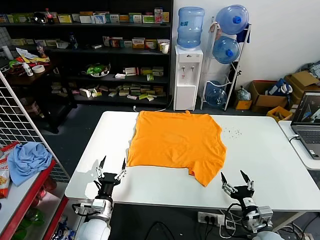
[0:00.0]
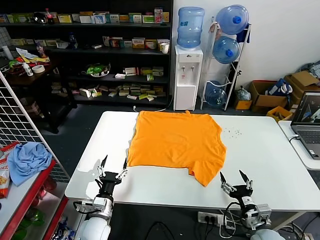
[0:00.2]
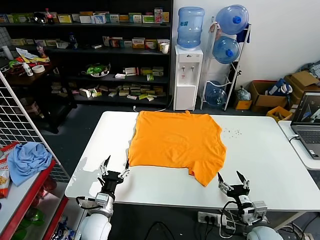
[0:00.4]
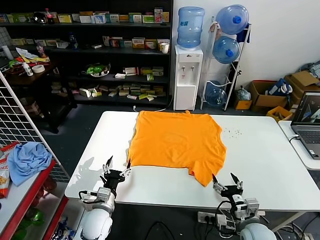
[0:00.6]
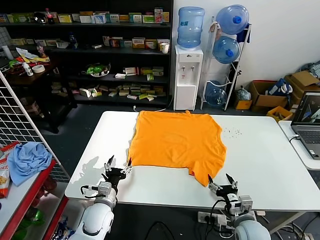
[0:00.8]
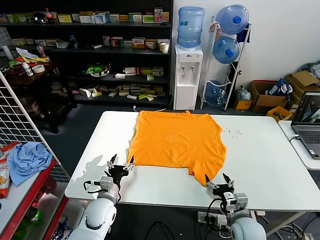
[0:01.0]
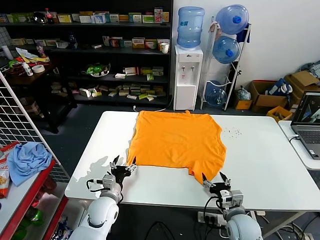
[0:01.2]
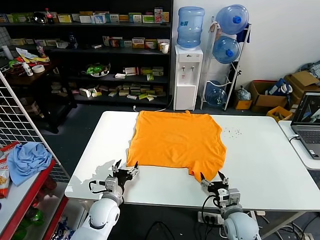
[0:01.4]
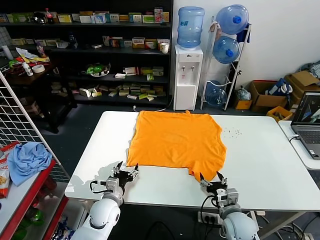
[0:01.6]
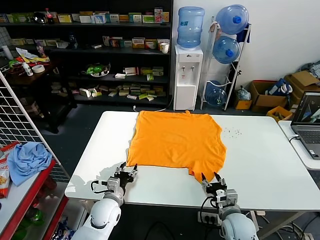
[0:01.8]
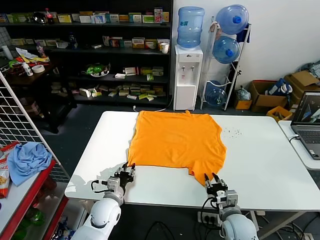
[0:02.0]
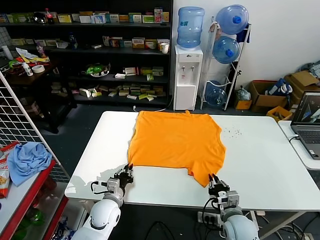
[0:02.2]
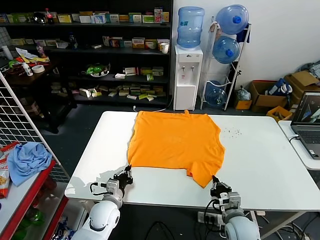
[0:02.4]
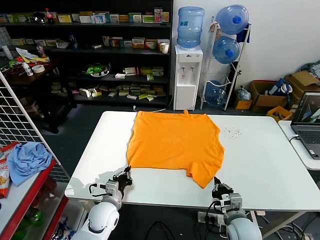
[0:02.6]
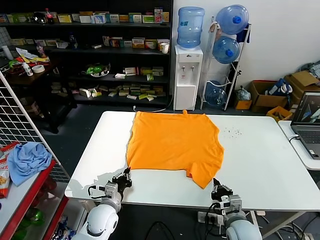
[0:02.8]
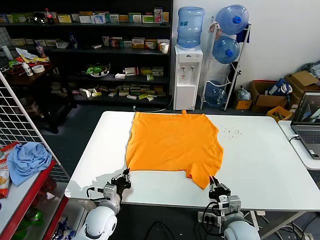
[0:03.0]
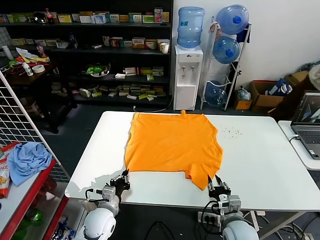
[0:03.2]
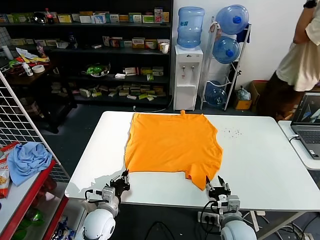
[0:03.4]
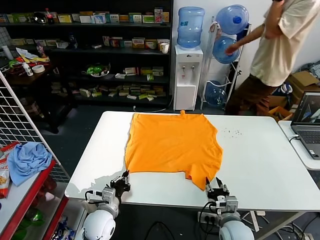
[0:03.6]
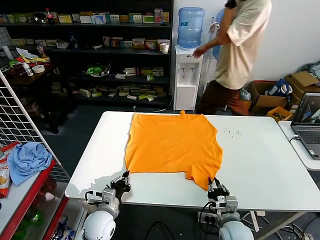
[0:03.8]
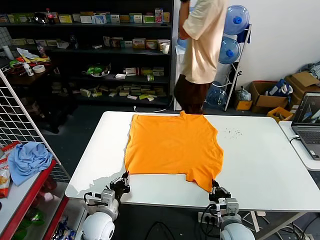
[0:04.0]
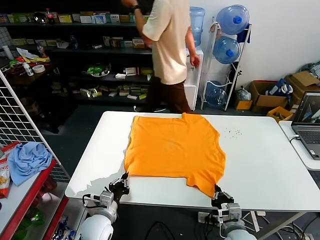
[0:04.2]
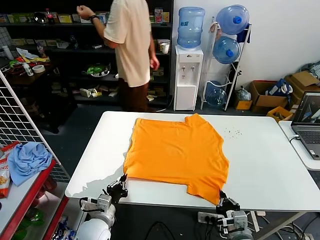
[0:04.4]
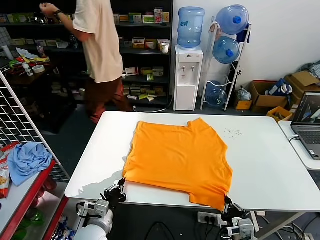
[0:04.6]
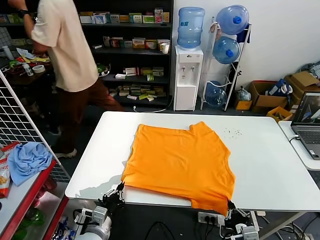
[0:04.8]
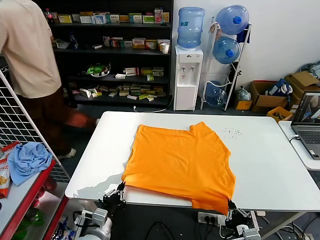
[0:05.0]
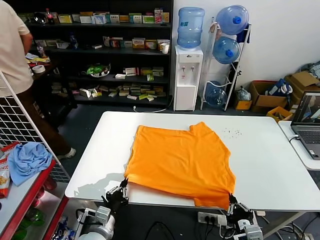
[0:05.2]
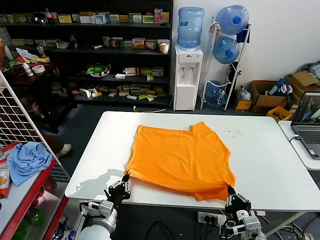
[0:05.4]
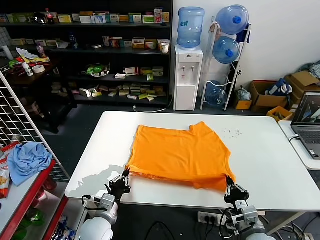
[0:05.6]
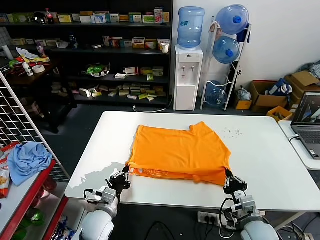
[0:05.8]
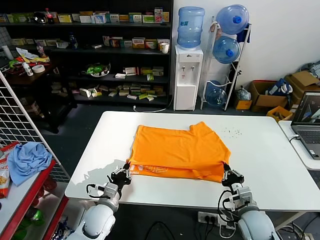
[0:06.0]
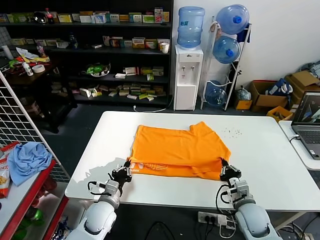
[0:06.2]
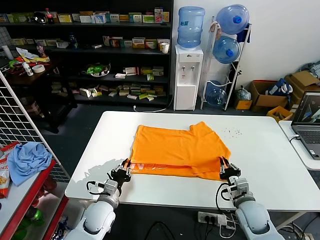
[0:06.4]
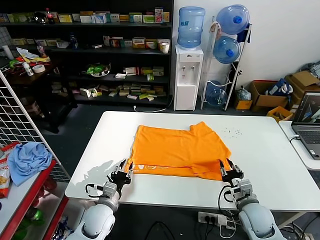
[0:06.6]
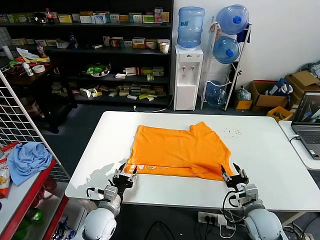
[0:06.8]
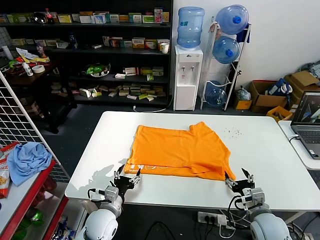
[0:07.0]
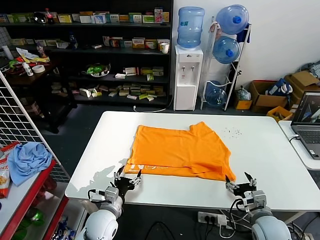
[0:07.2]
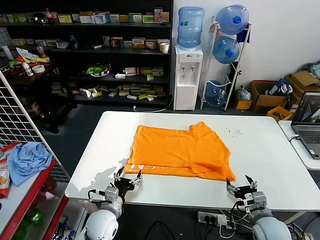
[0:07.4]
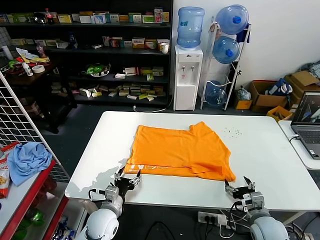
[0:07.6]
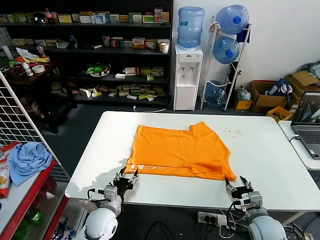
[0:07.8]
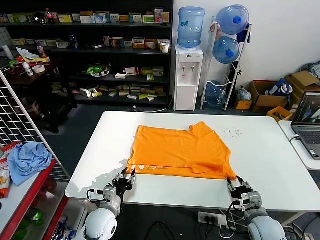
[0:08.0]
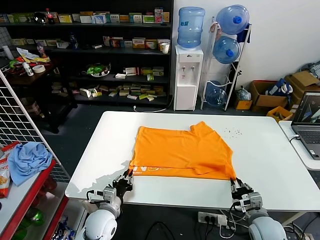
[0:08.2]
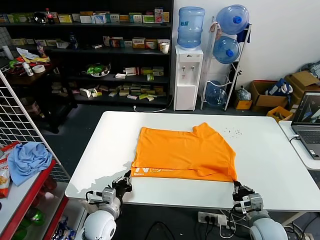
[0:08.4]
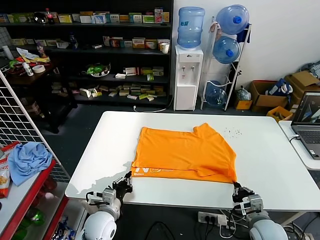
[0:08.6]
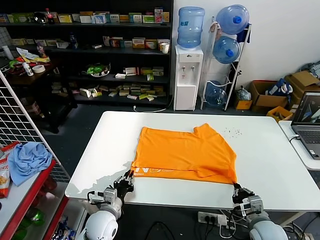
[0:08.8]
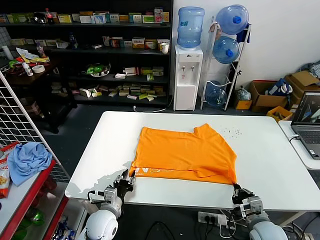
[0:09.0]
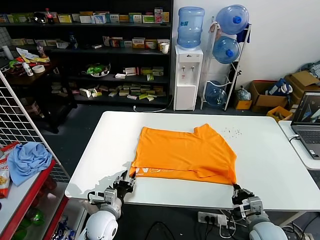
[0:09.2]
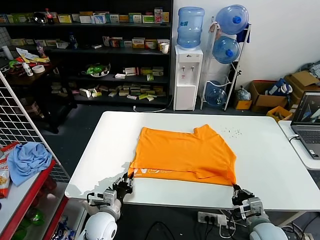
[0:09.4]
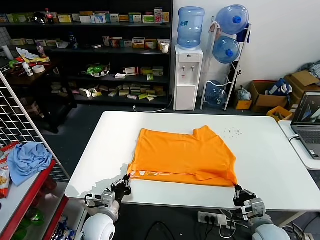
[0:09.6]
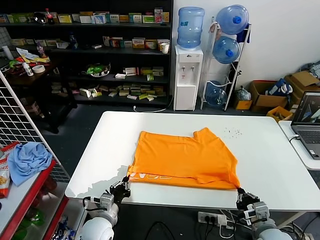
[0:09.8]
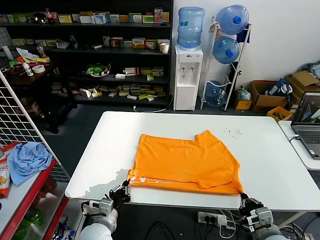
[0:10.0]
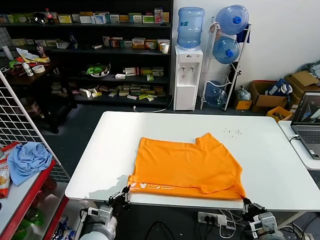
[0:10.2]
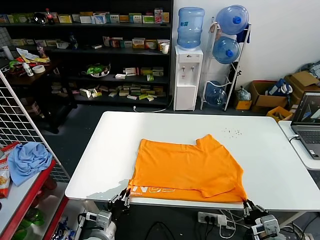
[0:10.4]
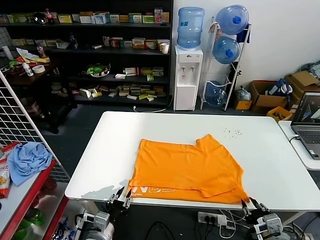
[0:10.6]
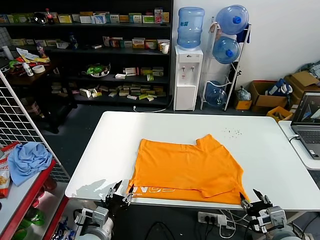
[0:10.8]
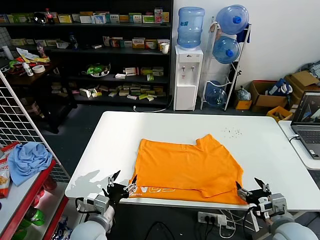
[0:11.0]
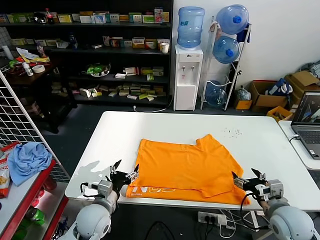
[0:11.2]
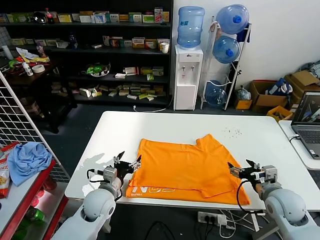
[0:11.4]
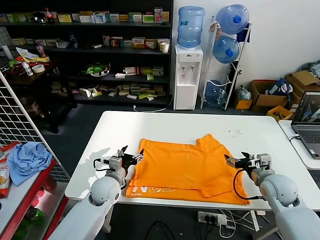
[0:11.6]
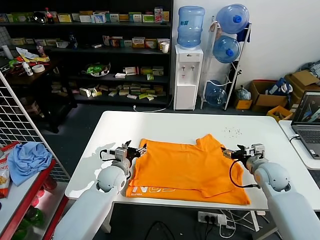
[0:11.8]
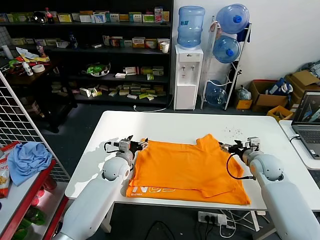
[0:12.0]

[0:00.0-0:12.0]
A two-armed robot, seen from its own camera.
Task of the whole recording: fold and organize the clothes.
Step, 0:00.0 to 0:04.2: use both grippers simultaneously to clamp the lower edge of the clothing fabric.
Step, 0:04.4 to 0:07.0: use both grippers to drag the lower edge of the fabric forward and fold it over the upper edge.
Step, 0:07.2 to 0:10.8: Drag the clothes downward with both gripper.
0:01.6 to 0:03.0: The left gripper closes its fingers, while the right gripper closes.
0:03.0 to 0:04.4: The right gripper shifts about 5 cm backward, and opens, then closes once more.
0:04.4 to 0:06.0: The right gripper shifts some 10 cm forward.
0:06.0 to 0:07.6: The right gripper opens its fingers; the left gripper opens.
0:07.6 to 0:09.0: The right gripper closes its fingers, while the left gripper closes.
0:09.0 to 0:10.4: Both grippers travel together backward, roughly 10 cm.
0:10.4 to 0:12.0: The two grippers go roughly 25 cm forward. The right gripper opens its fingers, while the left gripper opens its fingers.

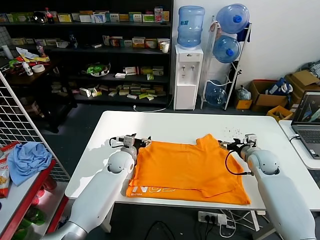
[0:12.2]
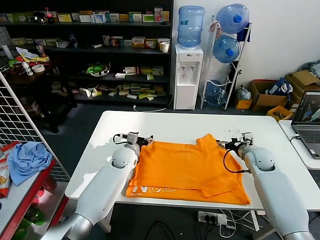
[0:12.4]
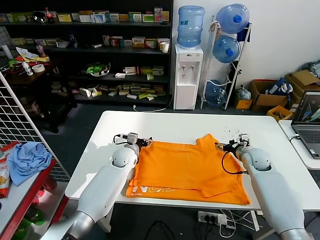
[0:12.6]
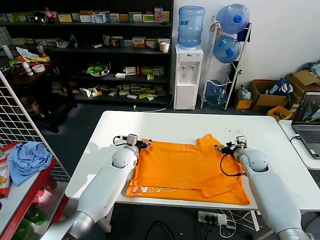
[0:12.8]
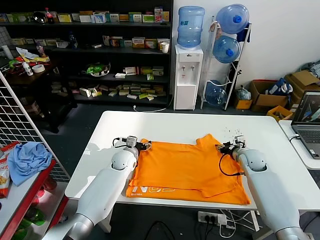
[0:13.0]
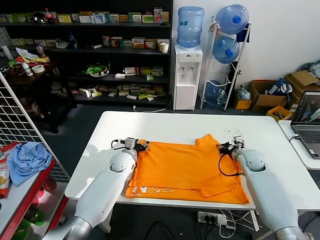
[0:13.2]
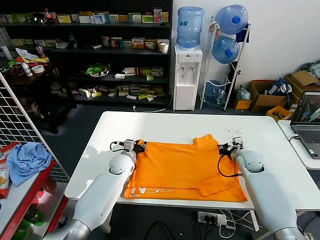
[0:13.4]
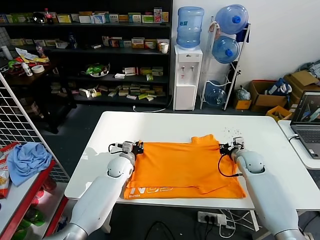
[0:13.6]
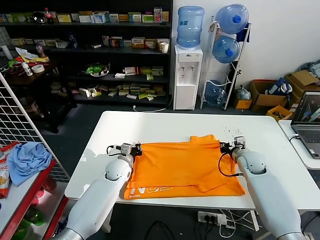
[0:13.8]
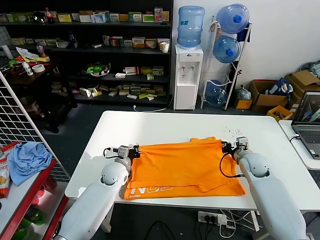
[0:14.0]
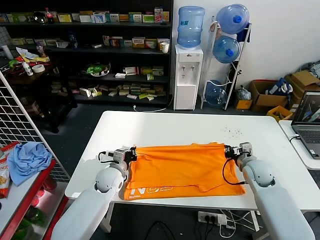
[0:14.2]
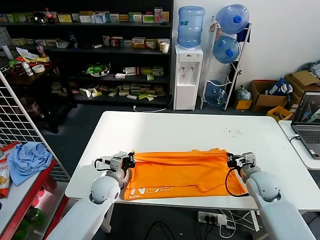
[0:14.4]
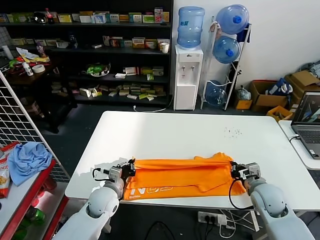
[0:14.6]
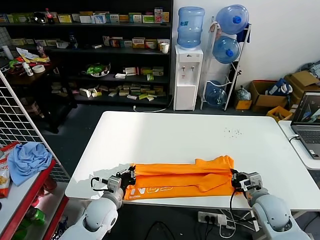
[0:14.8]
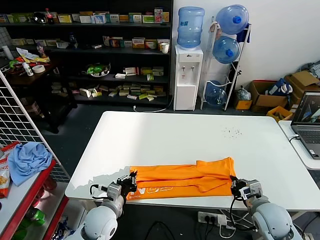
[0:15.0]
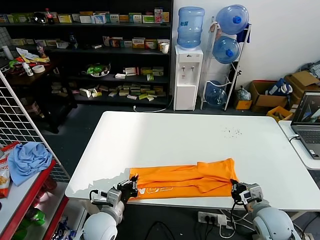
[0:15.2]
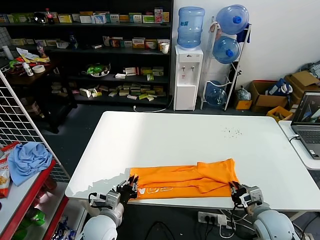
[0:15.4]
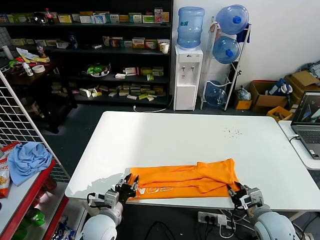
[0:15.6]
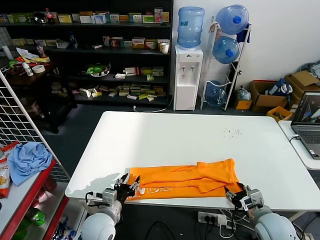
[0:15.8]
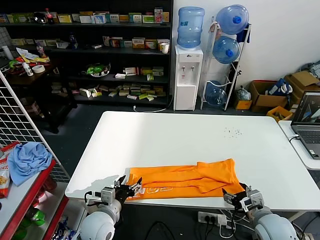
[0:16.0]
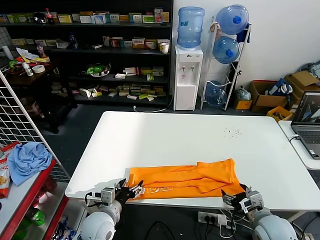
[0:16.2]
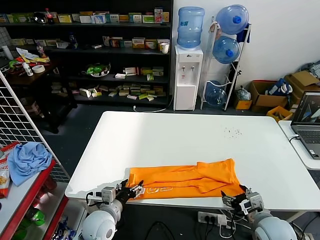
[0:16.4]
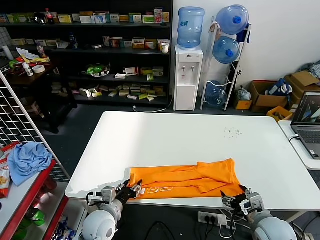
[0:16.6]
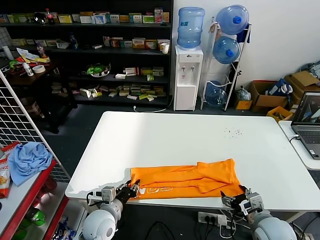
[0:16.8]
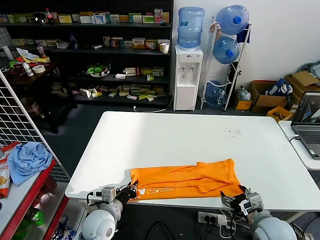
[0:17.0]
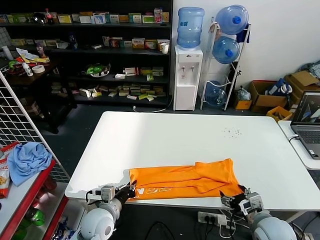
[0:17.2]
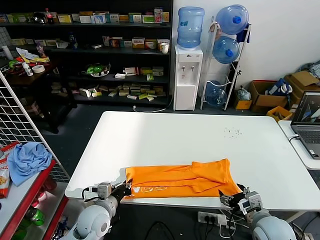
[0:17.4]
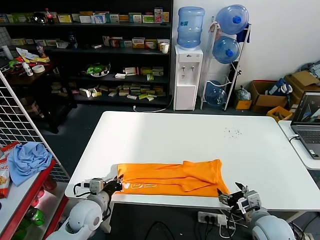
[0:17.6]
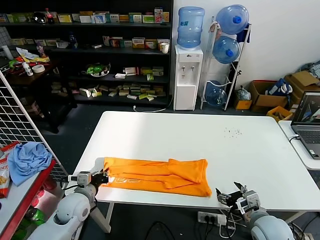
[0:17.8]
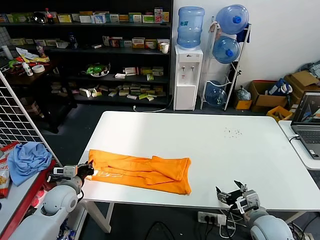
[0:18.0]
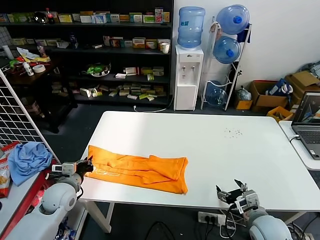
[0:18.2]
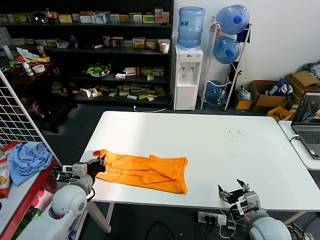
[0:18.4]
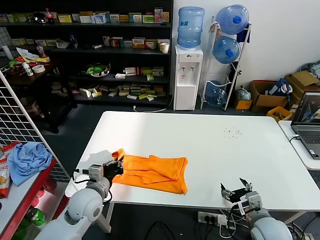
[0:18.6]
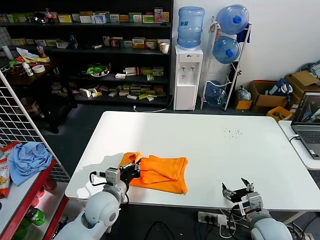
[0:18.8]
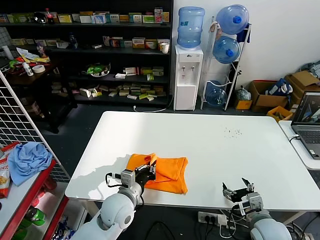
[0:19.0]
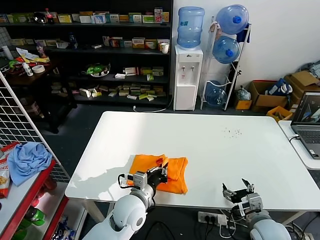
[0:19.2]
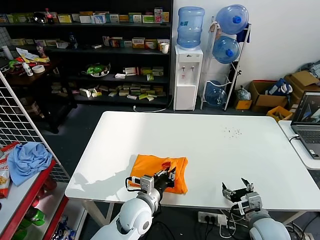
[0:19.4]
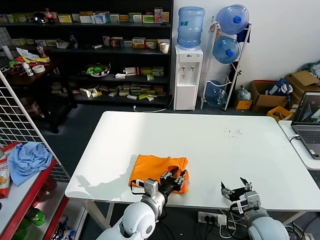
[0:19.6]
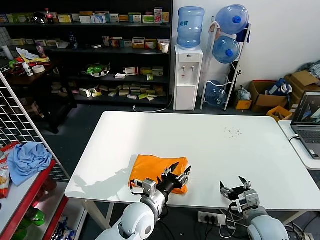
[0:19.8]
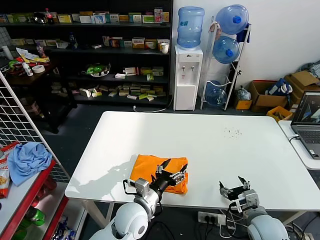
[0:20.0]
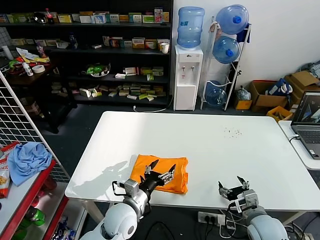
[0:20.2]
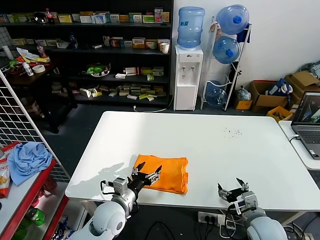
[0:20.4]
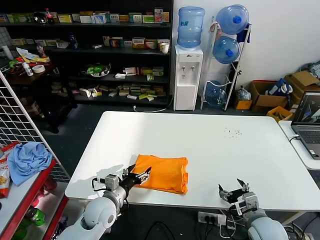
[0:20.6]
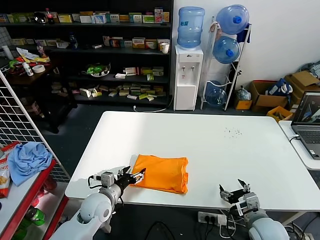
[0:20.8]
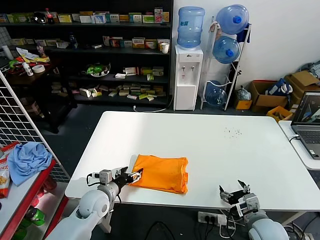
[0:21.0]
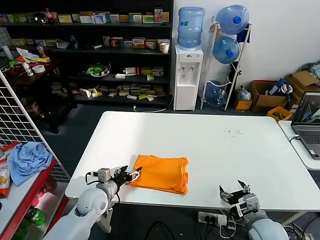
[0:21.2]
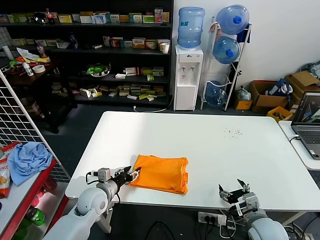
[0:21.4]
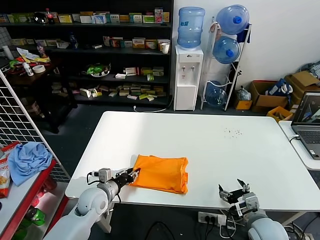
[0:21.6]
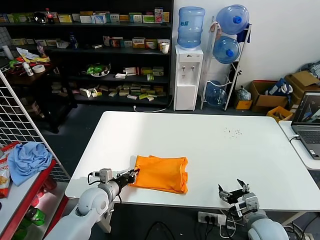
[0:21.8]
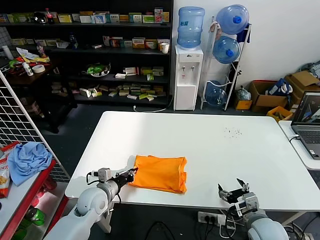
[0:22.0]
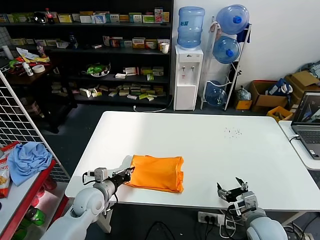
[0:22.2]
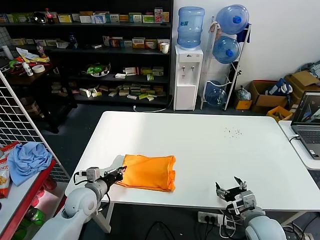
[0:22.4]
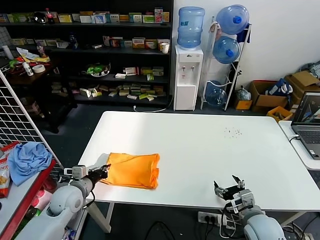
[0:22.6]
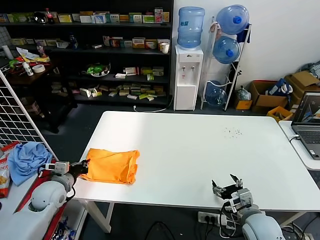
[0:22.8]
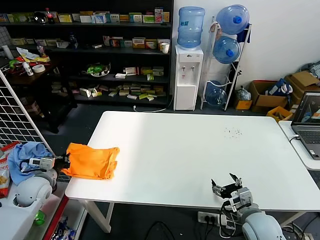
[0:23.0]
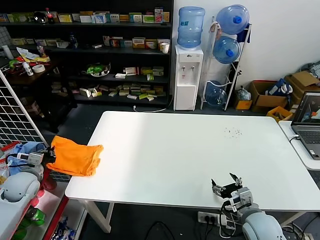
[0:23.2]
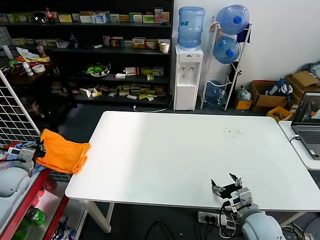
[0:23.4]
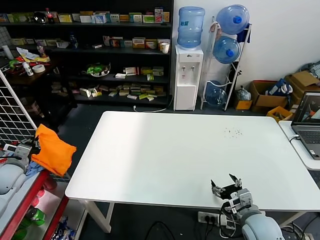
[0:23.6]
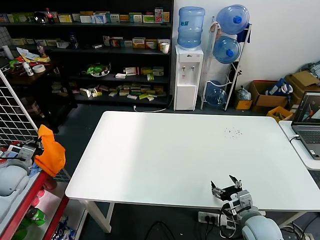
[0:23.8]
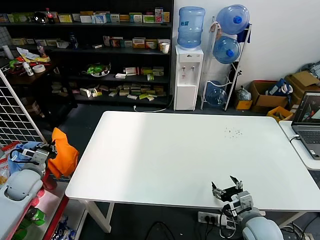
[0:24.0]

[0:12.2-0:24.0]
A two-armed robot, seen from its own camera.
Task of the whole recording: fold and organize the clothes.
Step, 0:13.6 to 0:16.0: use both grippers to drag the upper edge of the fabric backward and fold it over the lower edge.
Step, 0:16.2 to 0:17.2: use the left gripper to clamp the left edge of the fabric.
Step, 0:17.4 to 0:19.8: use the left gripper to drag the left edge of the fabric to the left and folds it over the right edge.
0:12.2 to 0:13.6: The left gripper closes up. The right gripper closes its fingers.
0:13.6 to 0:15.2: Both grippers travel together backward, approximately 20 cm.
0:15.2 to 0:16.6: The left gripper opens its fingers. The right gripper opens up.
0:16.6 to 0:18.2: The left gripper moves to the left and forward, some 15 cm, and closes.
0:18.2 to 0:19.6: The left gripper shifts about 25 cm to the right, and opens up.
0:19.6 to 0:21.0: The left gripper is displaced to the left by roughly 15 cm, and opens up.
0:21.0 to 0:22.6: The left gripper goes approximately 5 cm to the left, and closes.
0:22.6 to 0:24.0: The left gripper heads to the left, covering about 15 cm.
